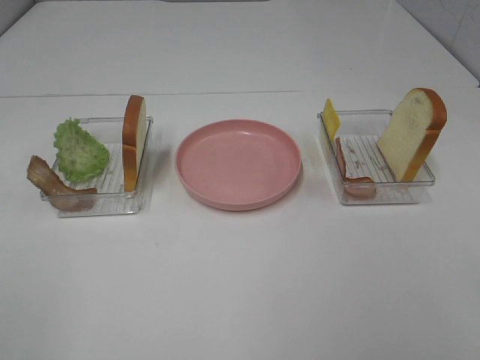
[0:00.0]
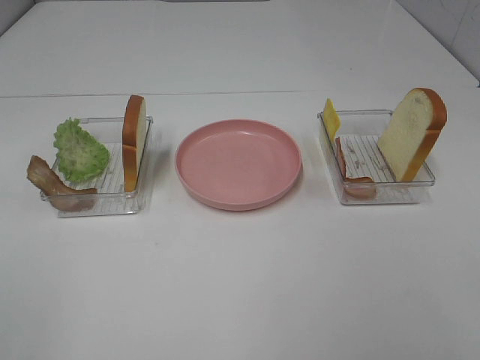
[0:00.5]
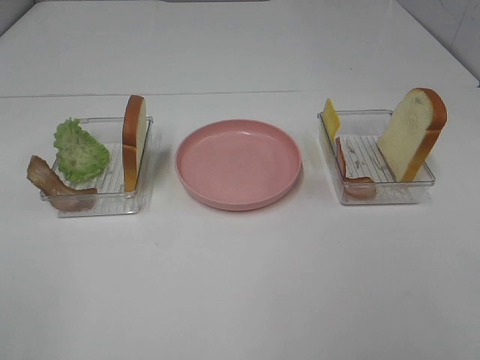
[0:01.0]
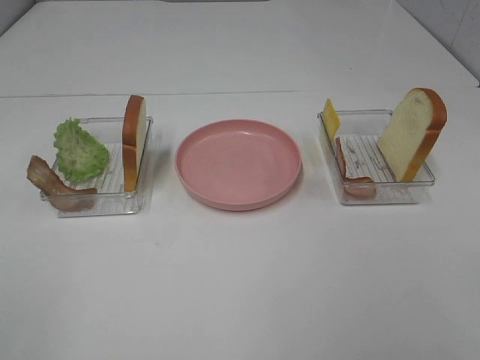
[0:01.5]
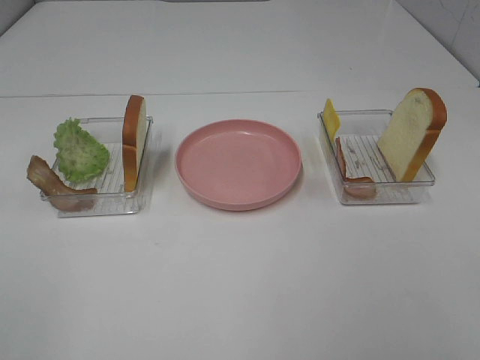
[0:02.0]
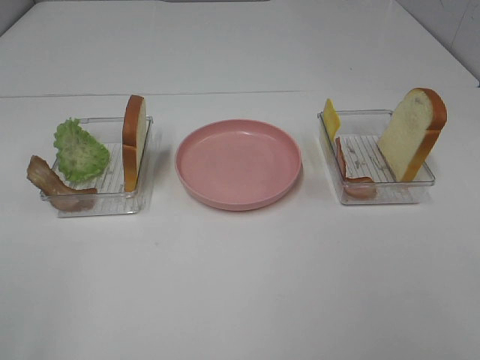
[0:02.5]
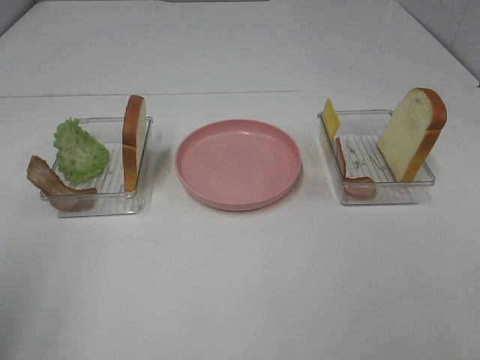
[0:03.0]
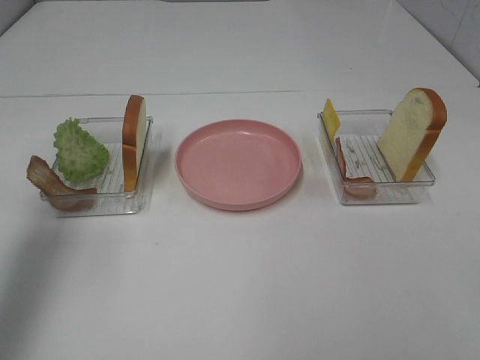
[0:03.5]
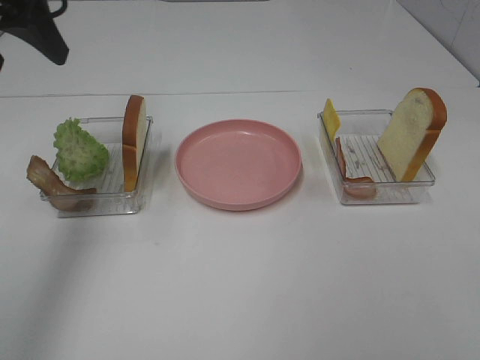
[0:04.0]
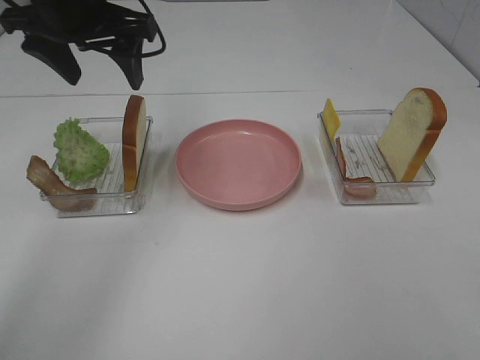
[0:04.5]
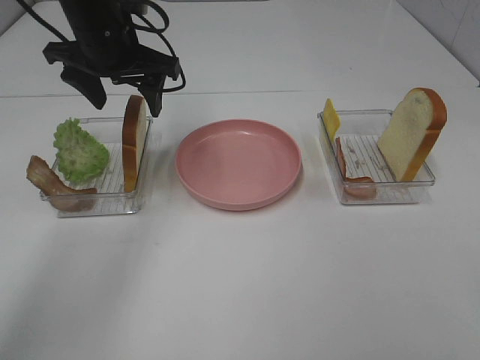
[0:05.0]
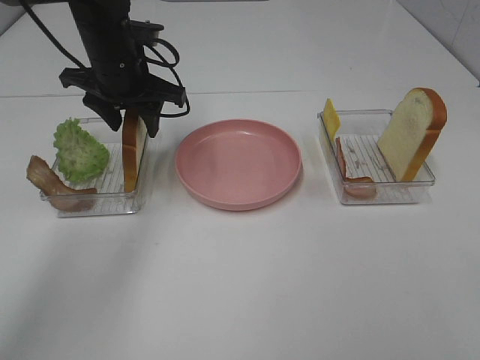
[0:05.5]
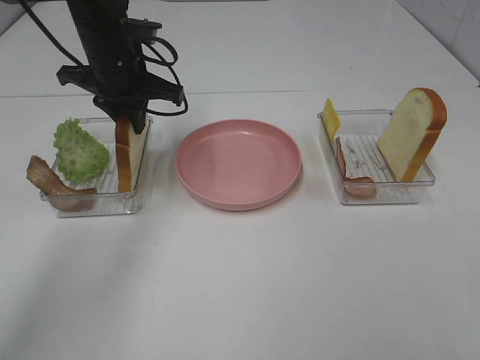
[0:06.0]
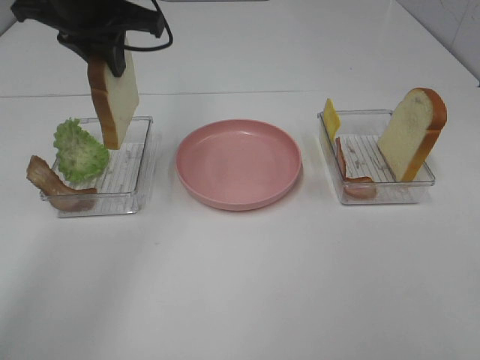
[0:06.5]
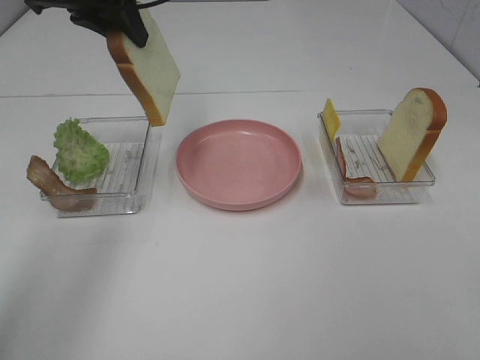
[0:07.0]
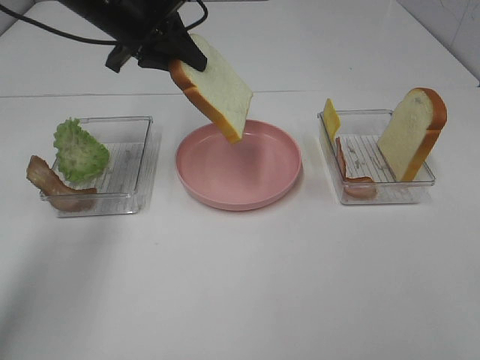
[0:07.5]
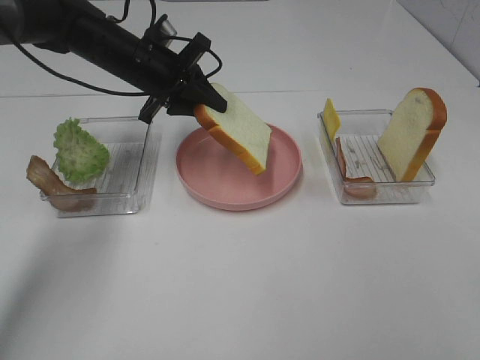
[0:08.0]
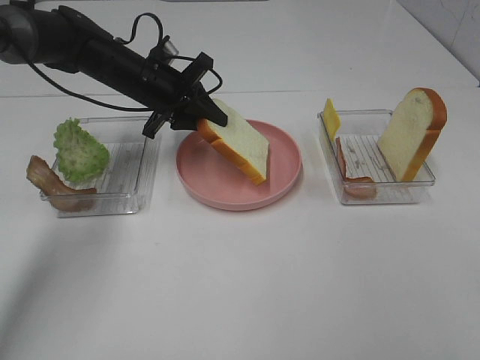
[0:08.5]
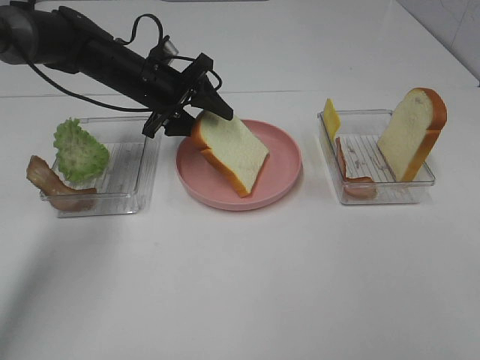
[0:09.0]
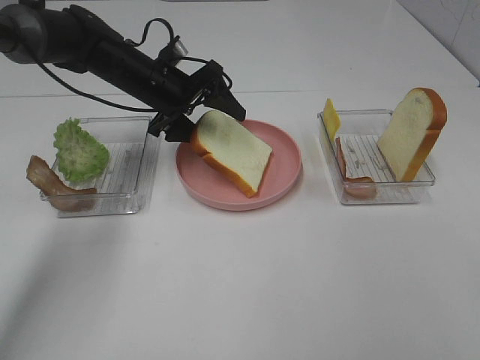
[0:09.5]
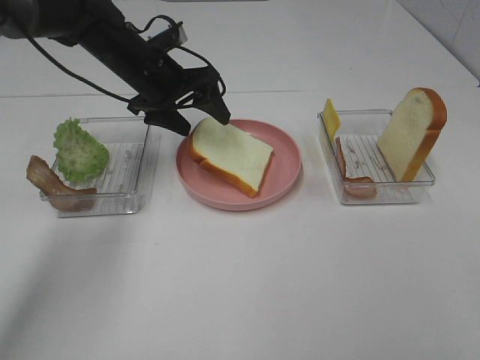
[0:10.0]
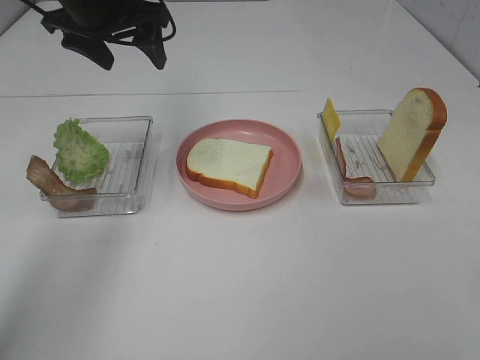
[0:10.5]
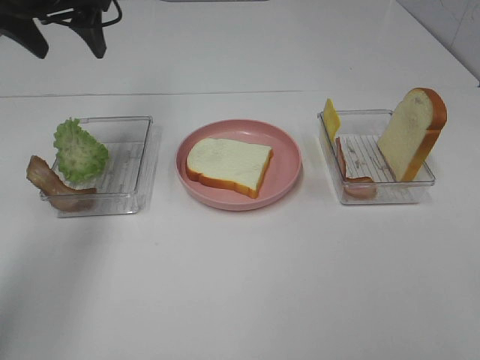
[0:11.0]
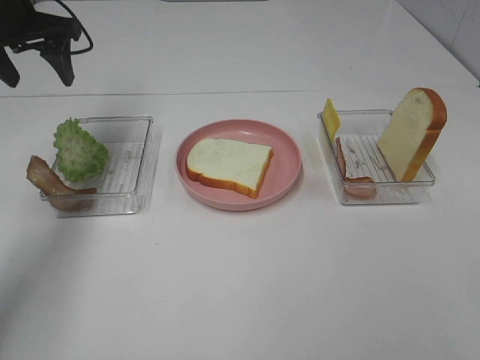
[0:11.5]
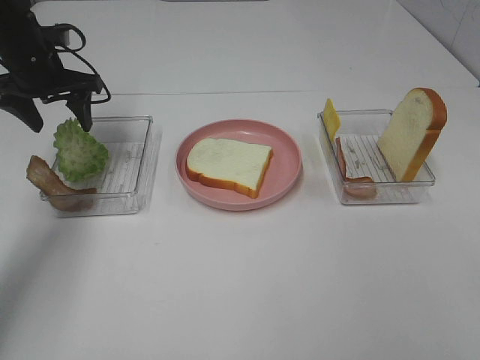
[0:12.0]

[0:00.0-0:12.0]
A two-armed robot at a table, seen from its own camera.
Task of the whole recording: Make sandwiches.
Step, 0:00.0 to 0:06.0: Left hand:grab the bread slice.
Step, 0:06.5 to 0:10.0: Left hand:place the bread slice on the plate.
0:00.0 to 0:02.0: The two grippers keep their place.
0:02.0 to 0:04.0: The left gripper travels forward by about 35 cm.
0:04.0 to 0:06.0: The left gripper goes some 20 cm downward, forward and to the right, and closes its fingers.
0:06.0 to 0:08.0: The left gripper reaches some 10 cm upward, then returns.
0:08.0 to 0:10.0: The left gripper opens its fingers.
0:10.0 to 0:12.0: The left gripper is displaced to the left by roughly 15 cm.

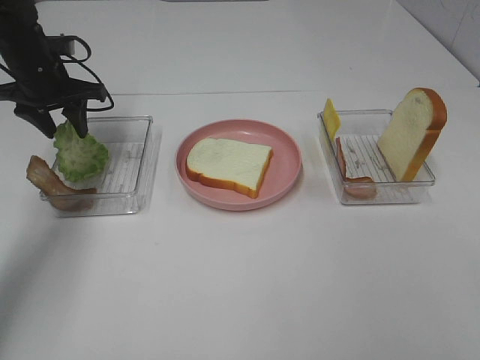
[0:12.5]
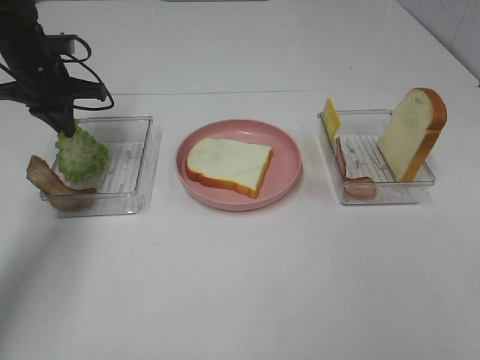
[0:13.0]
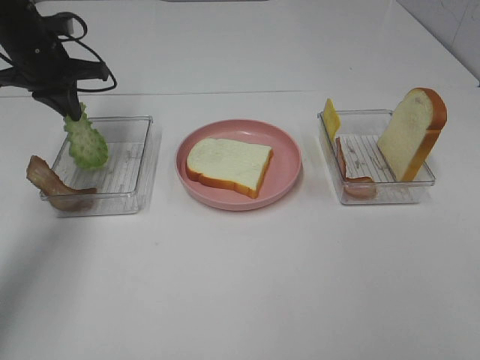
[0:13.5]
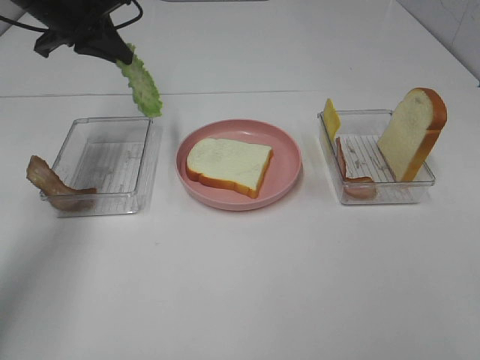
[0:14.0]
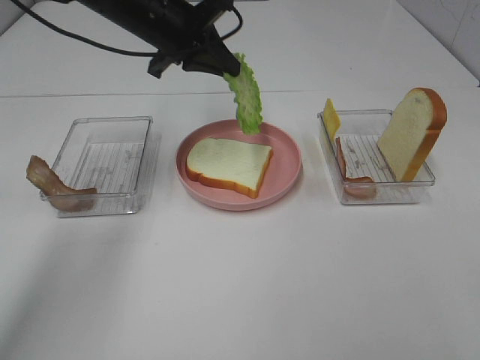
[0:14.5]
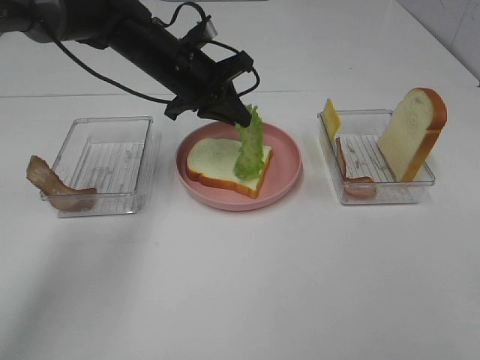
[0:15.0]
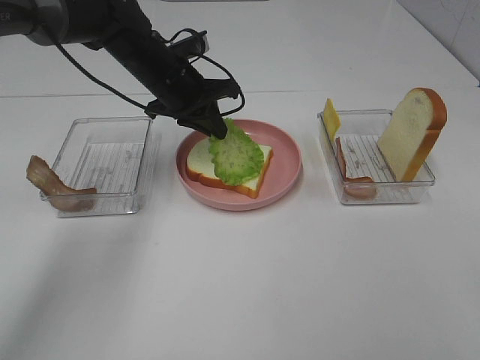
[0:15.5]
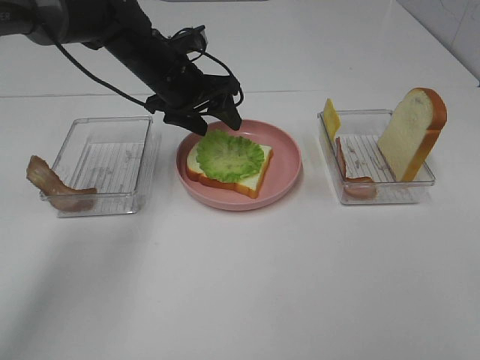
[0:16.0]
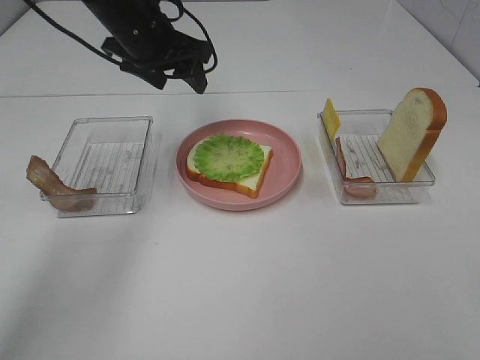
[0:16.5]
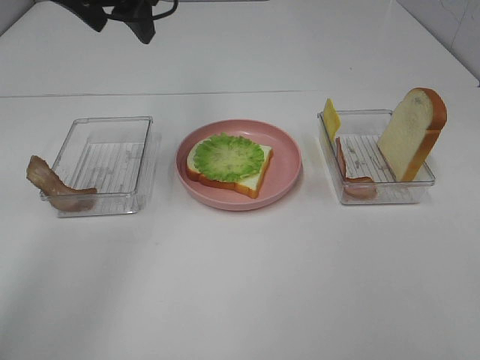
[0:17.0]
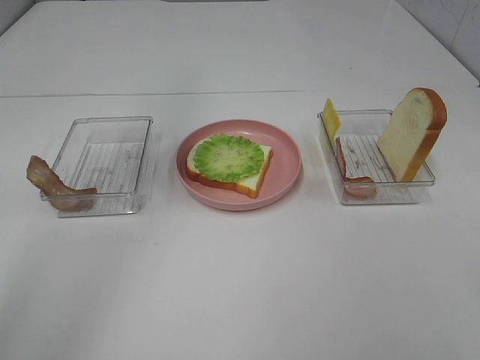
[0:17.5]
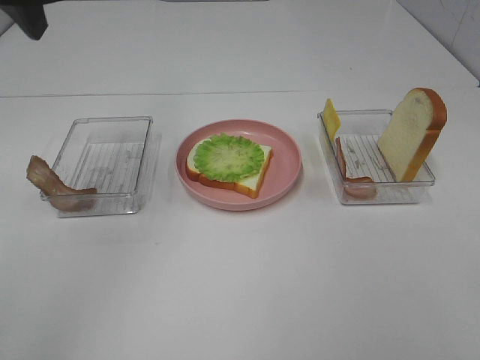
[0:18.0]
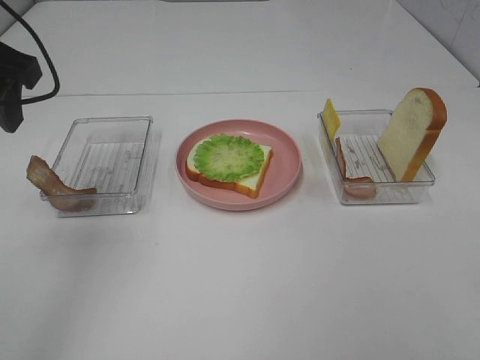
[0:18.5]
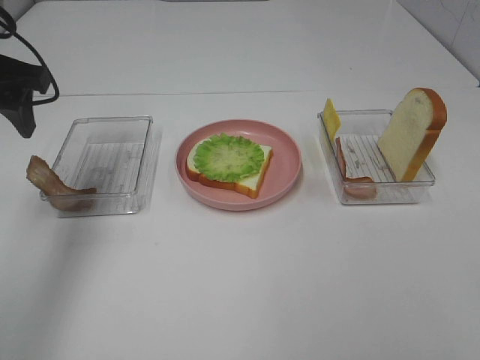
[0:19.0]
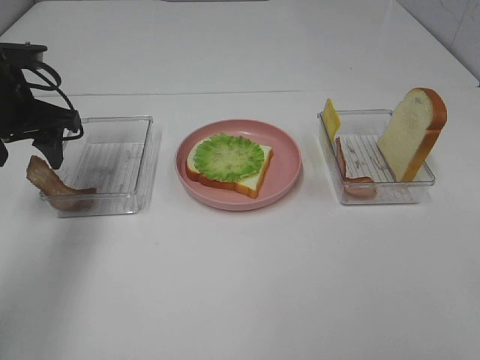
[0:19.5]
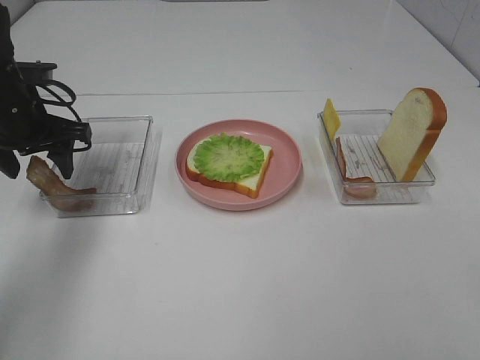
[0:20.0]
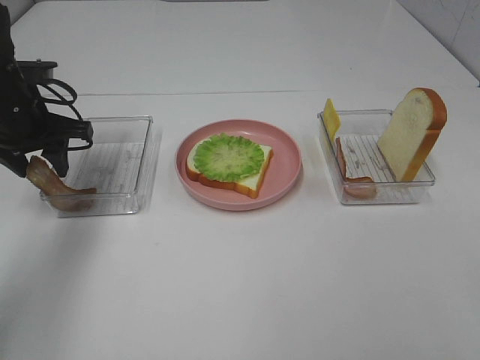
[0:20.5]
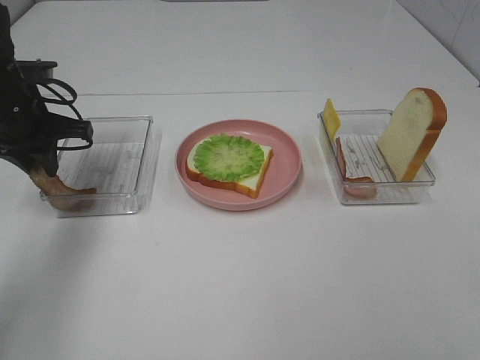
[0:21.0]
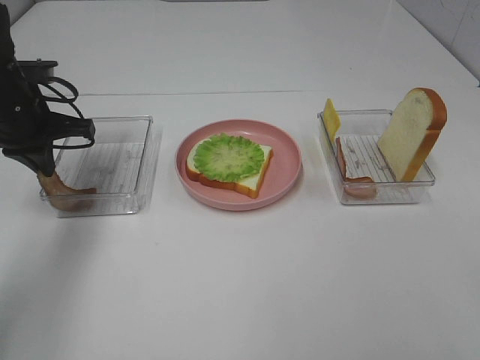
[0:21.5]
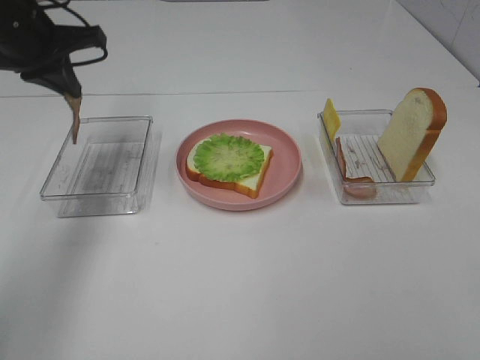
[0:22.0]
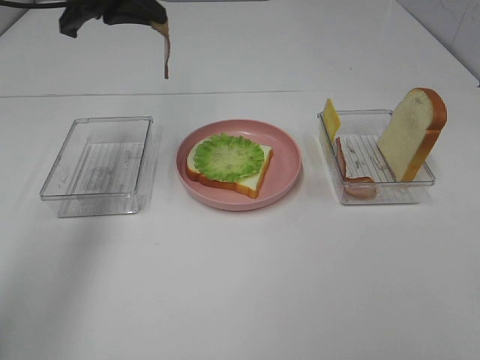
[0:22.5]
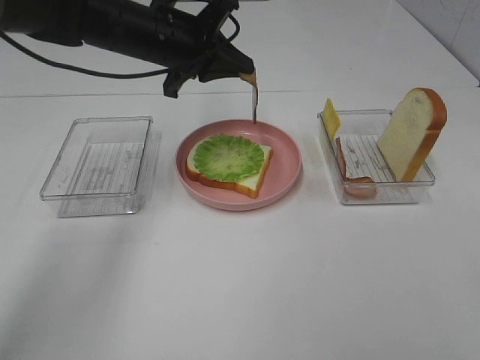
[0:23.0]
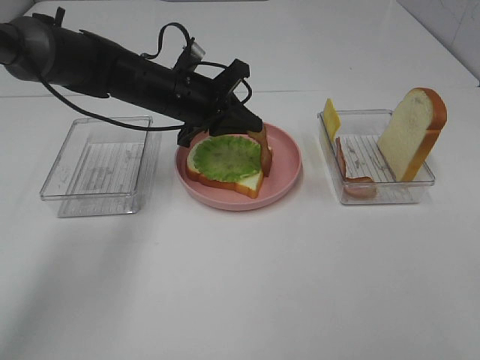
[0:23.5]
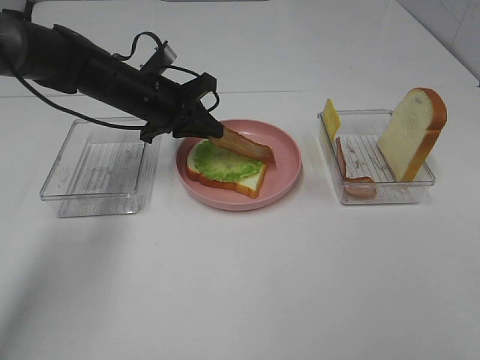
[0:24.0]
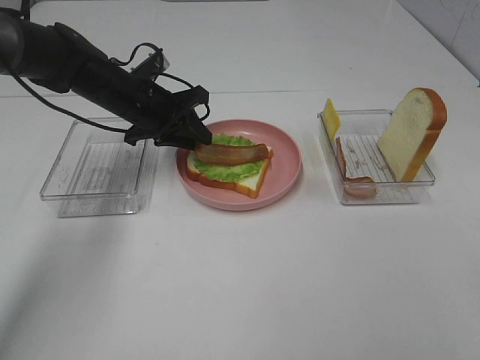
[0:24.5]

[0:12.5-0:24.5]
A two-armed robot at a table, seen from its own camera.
Task of the whole recording: Make sandwiches.
Step, 0:13.5 to 0:16.0: Left hand:place the lettuce slice on the bread slice.
Step, 0:16.5 to 0:21.5: Left hand:grab the bacon.
0:12.5 to 0:14.5: The left gripper moves to the right, some 15 cm, and closes up.
0:14.5 to 0:16.5: The left gripper reaches roughly 5 cm downward, then returns, and opens its fingers.
0:16.5 to 0:18.5: The left gripper moves backward, to the left and upward, approximately 20 cm.
0:18.5 to 0:20.5: The left gripper heads downward and forward, covering roughly 15 cm.
0:20.5 to 0:22.5: The left gripper moves upward and to the right, some 15 cm, and closes up.
0:22.5 to 0:24.5: The left gripper shifts about 15 cm downward, and opens up.

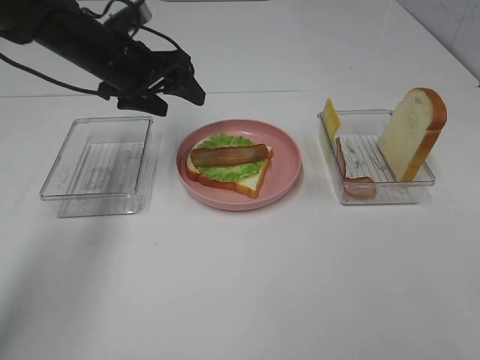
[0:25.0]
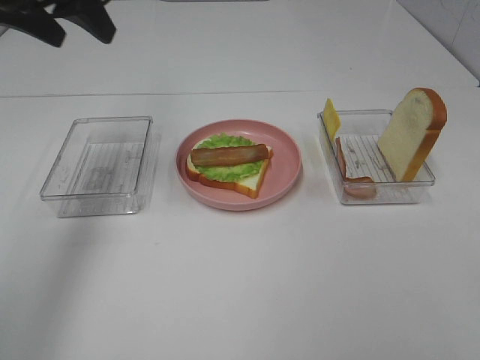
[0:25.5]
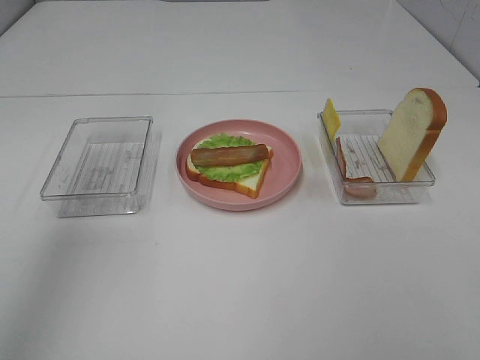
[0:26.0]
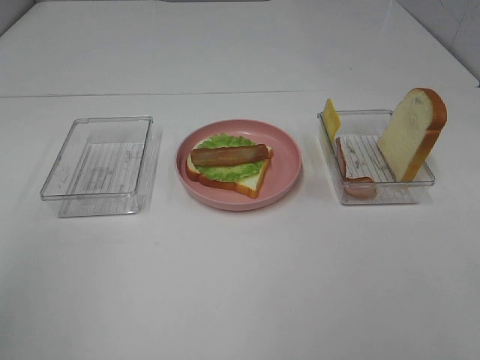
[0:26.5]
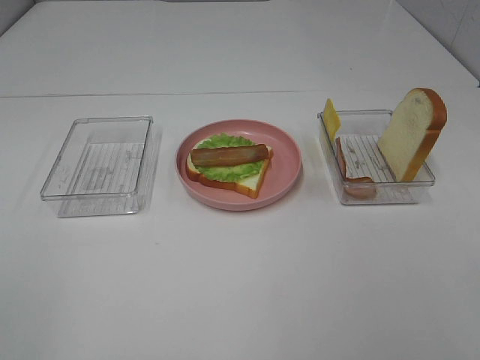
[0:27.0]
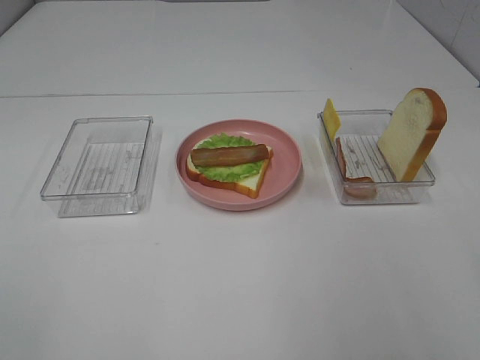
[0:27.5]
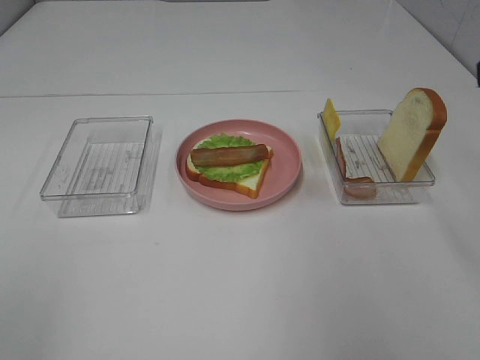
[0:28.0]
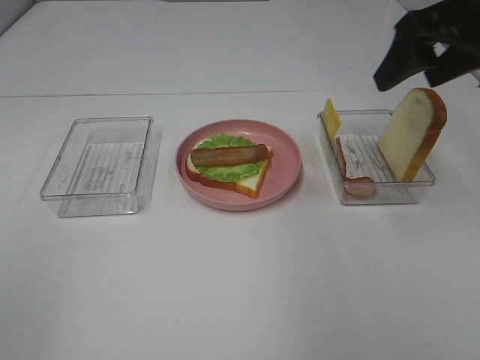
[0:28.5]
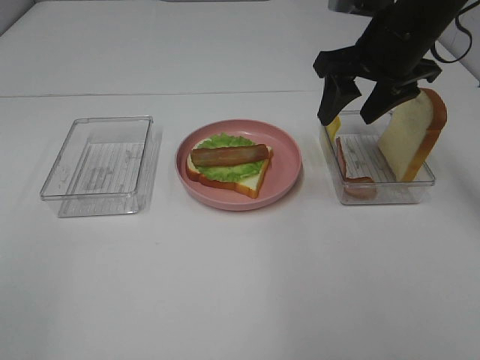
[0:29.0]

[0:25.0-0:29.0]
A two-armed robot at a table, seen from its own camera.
Task of the whole recording: Make sandwiches.
0:25.0 to 0:27.0: The left gripper is displaced backward by roughly 50 cm.
0:27.0 to 0:29.0: The right gripper is displaced forward by roughly 40 cm.
